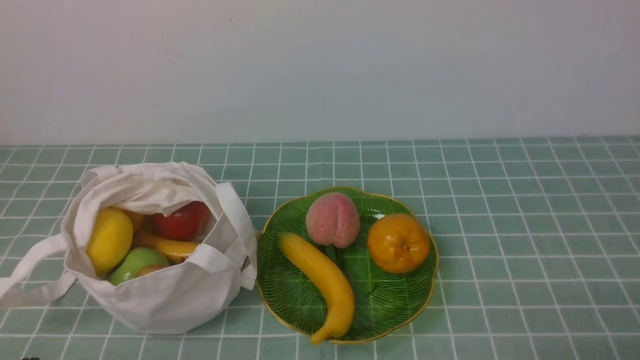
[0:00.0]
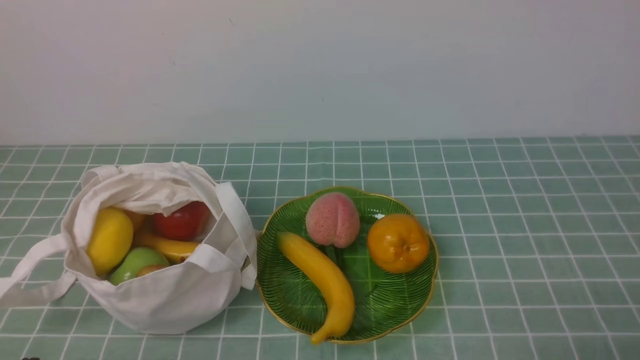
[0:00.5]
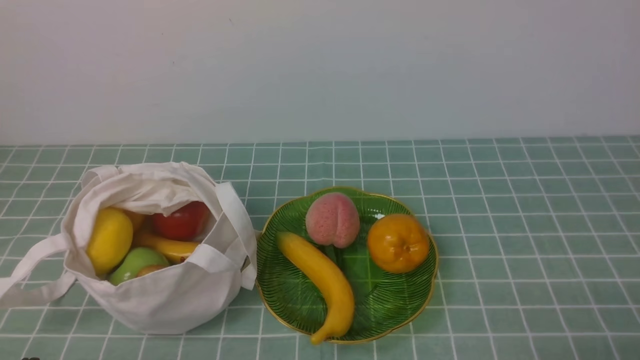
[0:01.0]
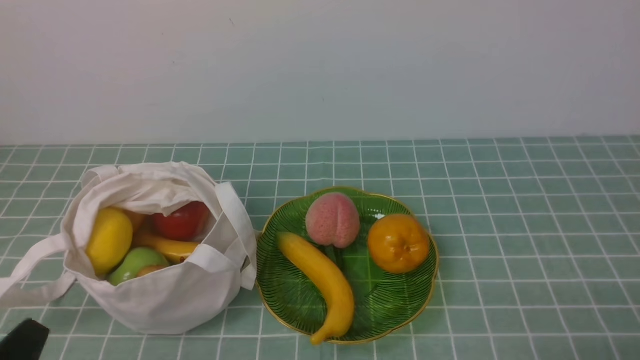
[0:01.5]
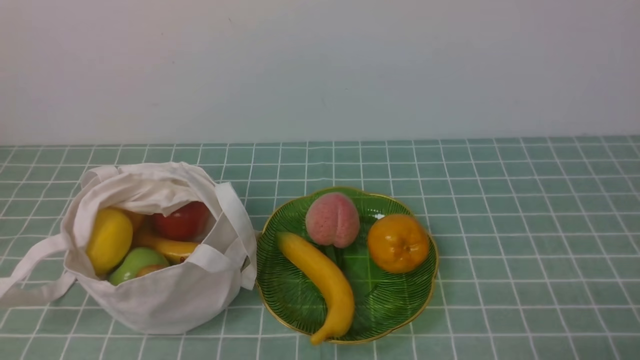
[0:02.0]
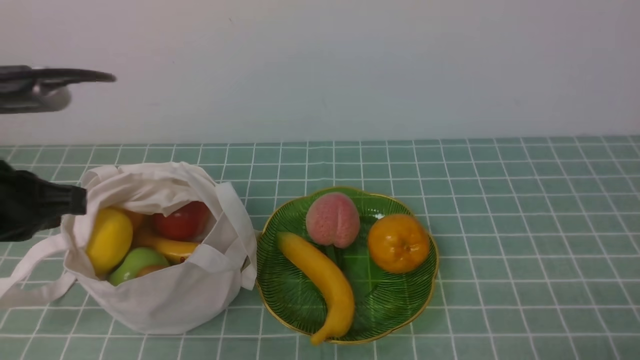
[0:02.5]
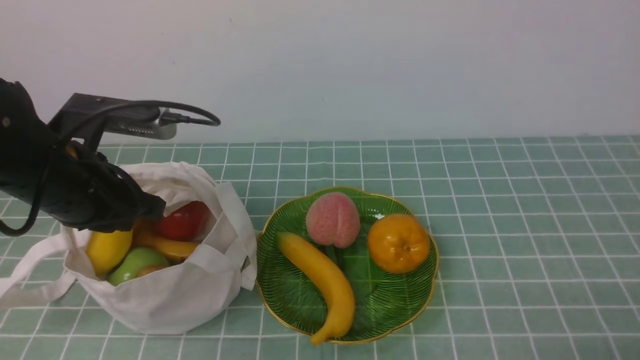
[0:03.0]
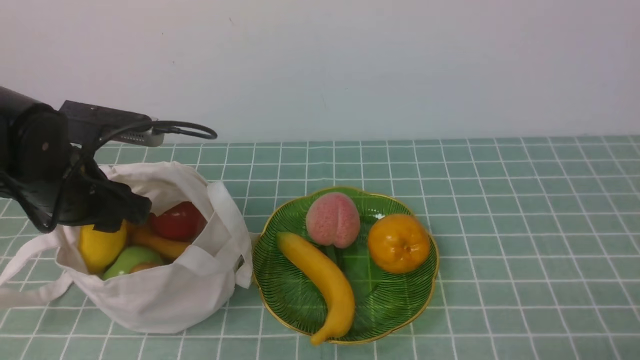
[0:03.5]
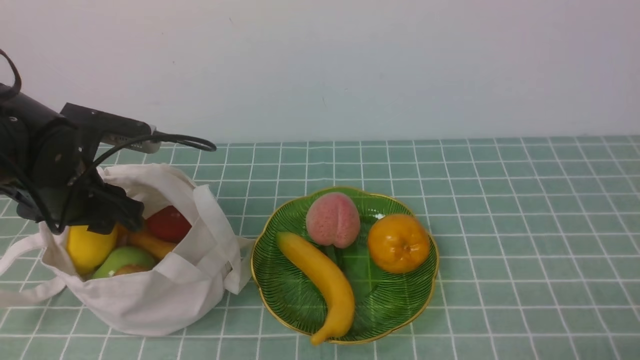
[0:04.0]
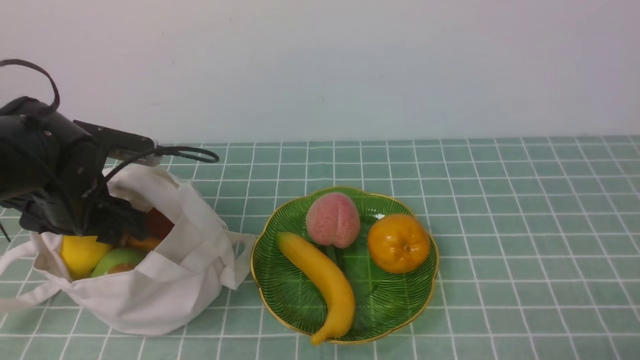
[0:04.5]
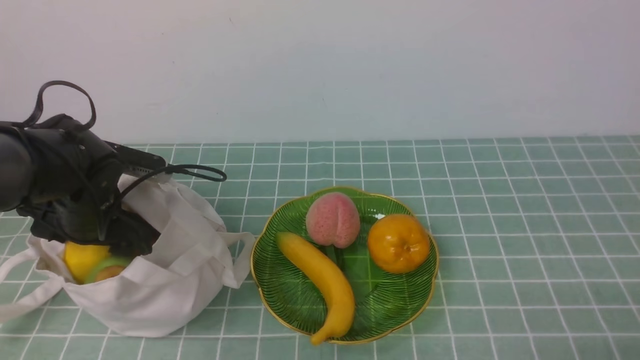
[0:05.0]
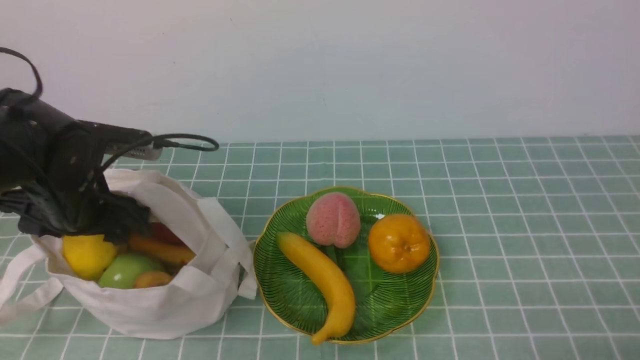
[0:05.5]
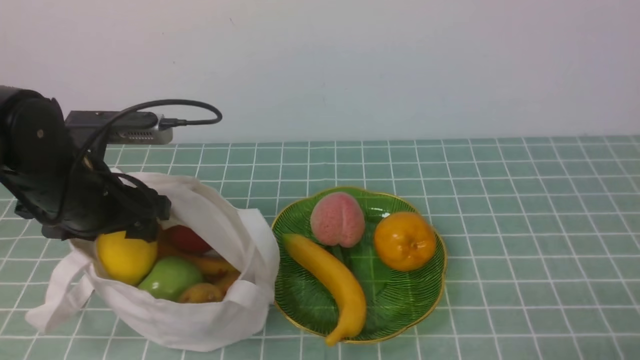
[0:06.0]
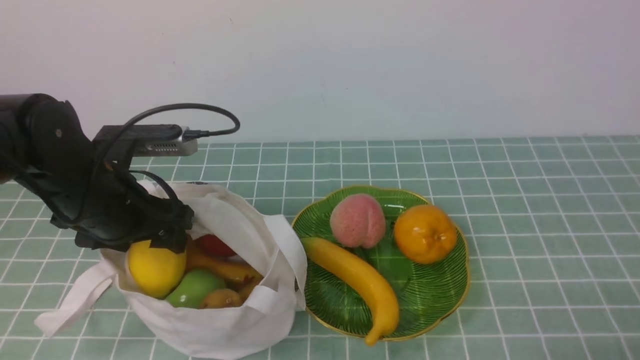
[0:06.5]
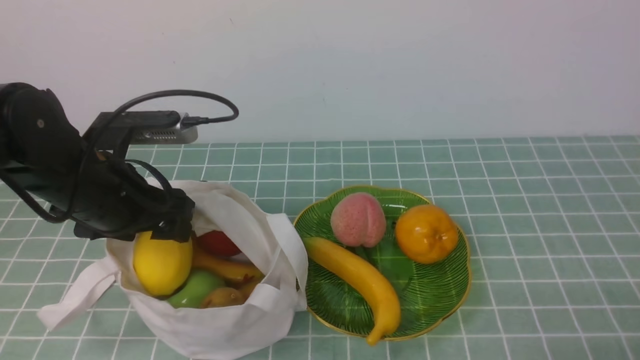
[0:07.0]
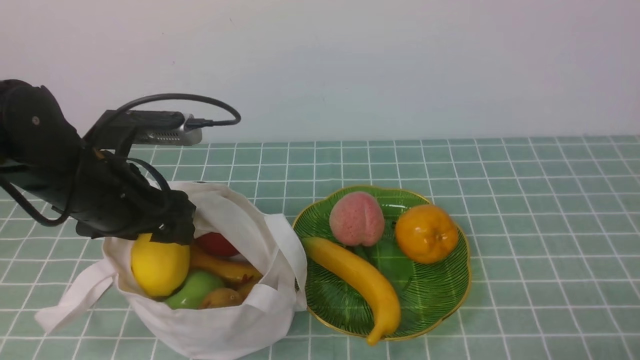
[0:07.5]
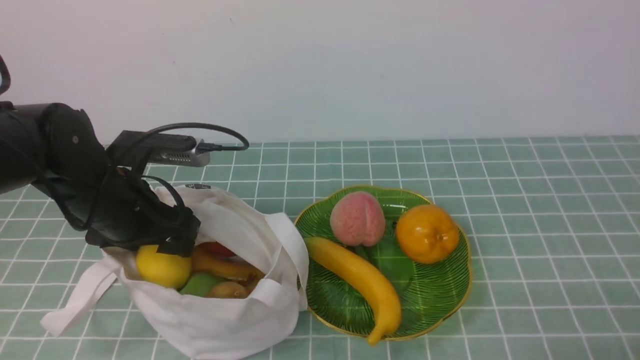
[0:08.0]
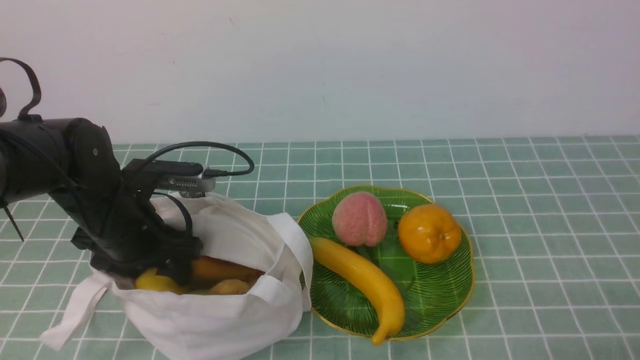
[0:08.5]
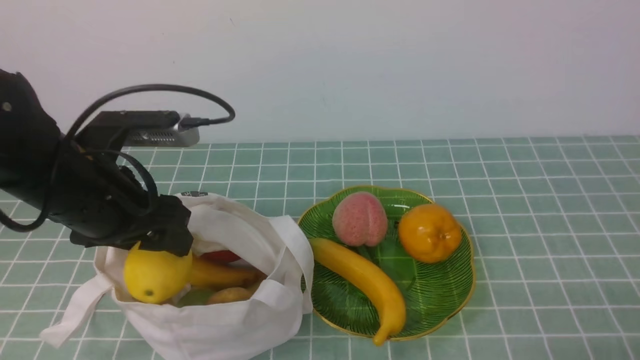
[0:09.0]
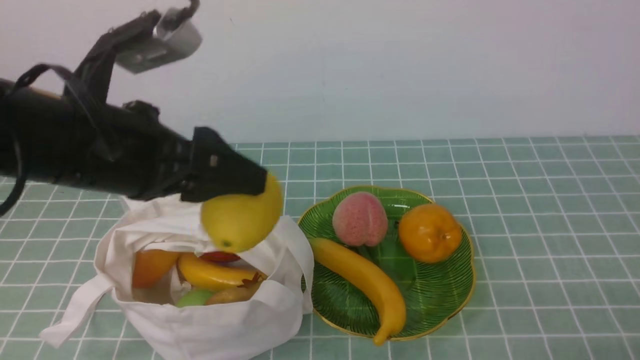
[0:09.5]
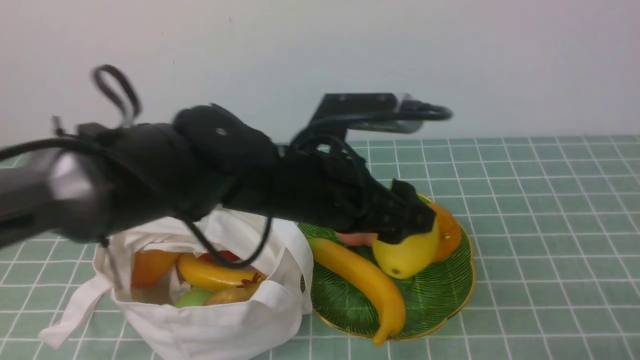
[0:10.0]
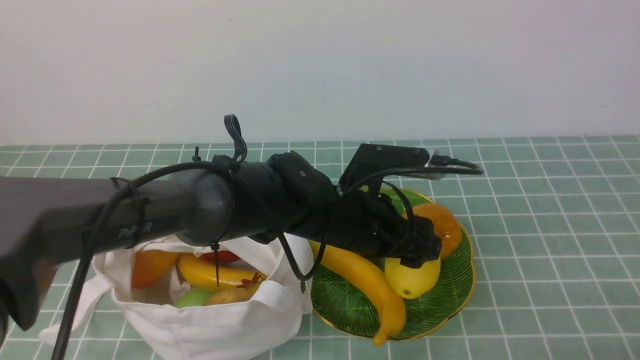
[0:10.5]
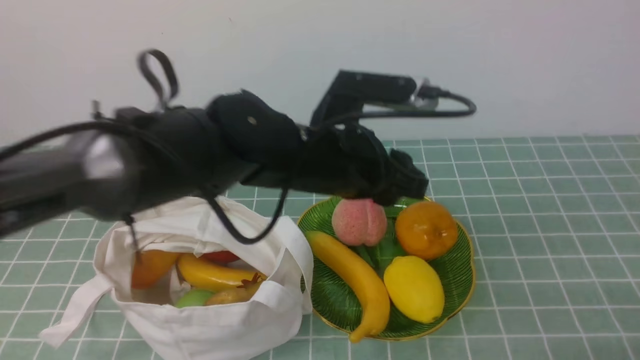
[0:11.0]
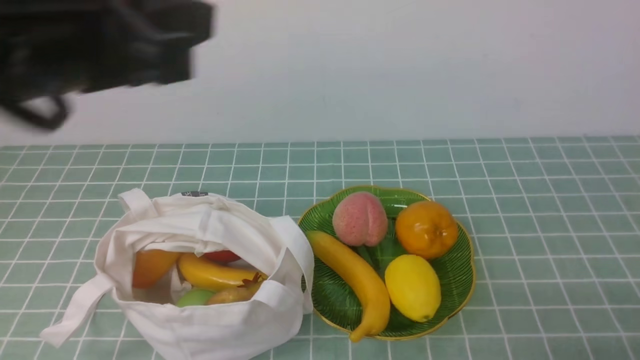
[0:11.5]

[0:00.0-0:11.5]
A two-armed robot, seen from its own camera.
Step, 0.0 to 8.5 s: use the left arm to grab a lemon from the bag.
Step, 9.0 to 10.5 s: use the left arm to put the lemon into the empty plate on the right.
2.0 to 4.0 s: The left gripper is displaced forward by roughly 25 cm, and opens up.
6.0 to 7.5 s: The grippers stay close to where they were, moving slightly.
7.5 to 9.5 s: The left gripper heads upward, covering some 10 cm.
9.5 to 11.5 s: The left gripper moves upward, some 10 cm, and closes.

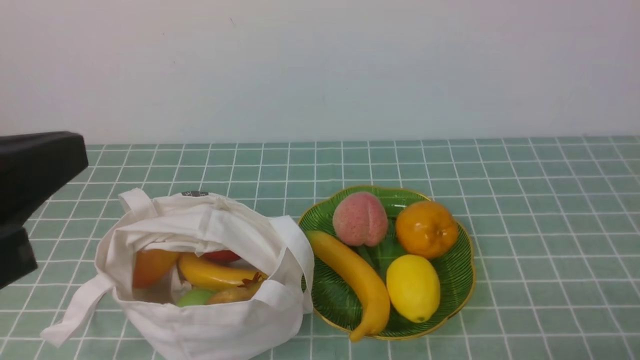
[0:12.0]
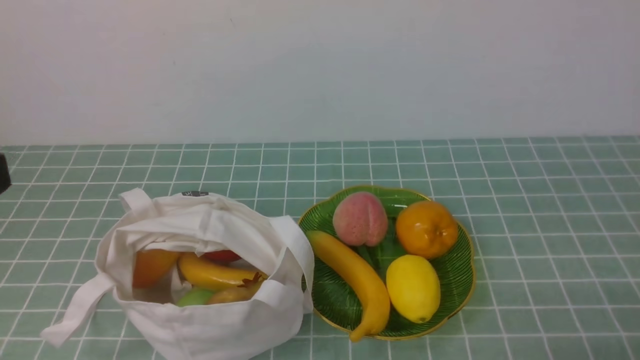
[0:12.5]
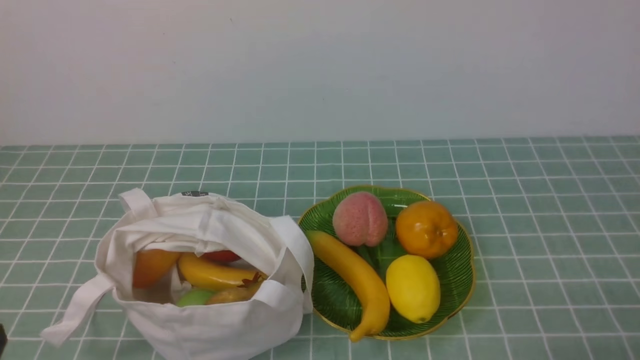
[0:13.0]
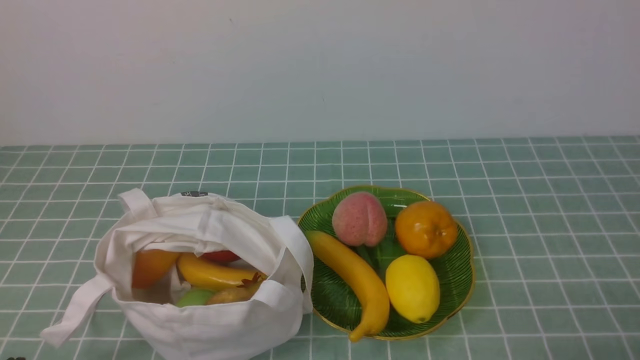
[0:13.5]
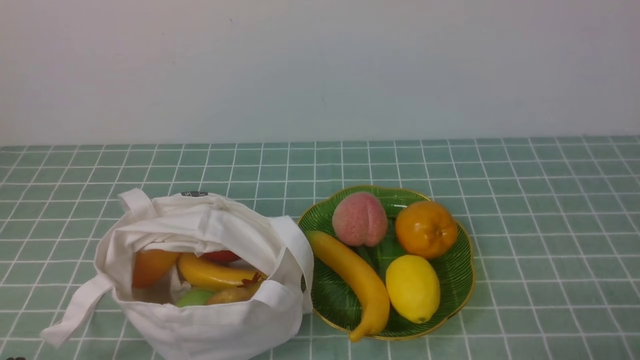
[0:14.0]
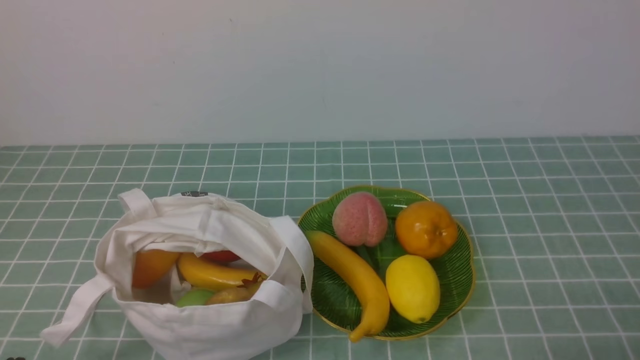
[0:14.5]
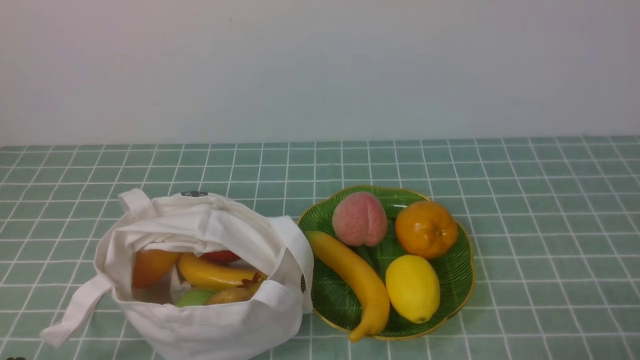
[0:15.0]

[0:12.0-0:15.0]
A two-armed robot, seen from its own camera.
12.0 to 13.5 s: The left gripper travels downward by about 25 cm.
13.5 to 15.0 s: Both grippers stay put.

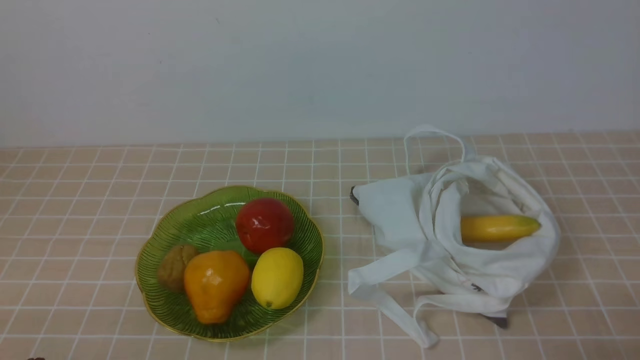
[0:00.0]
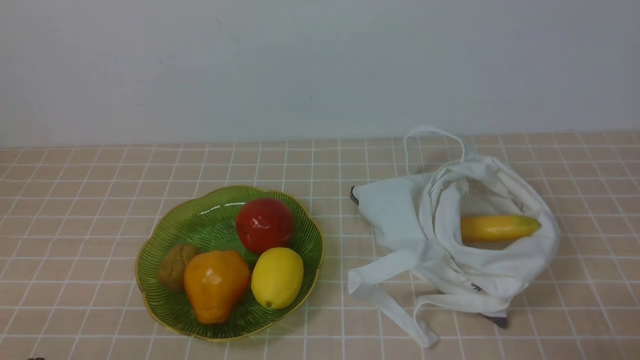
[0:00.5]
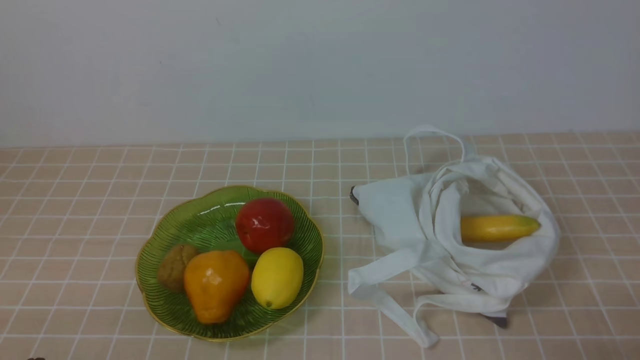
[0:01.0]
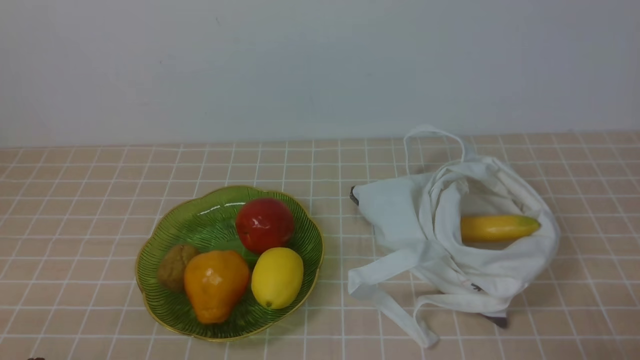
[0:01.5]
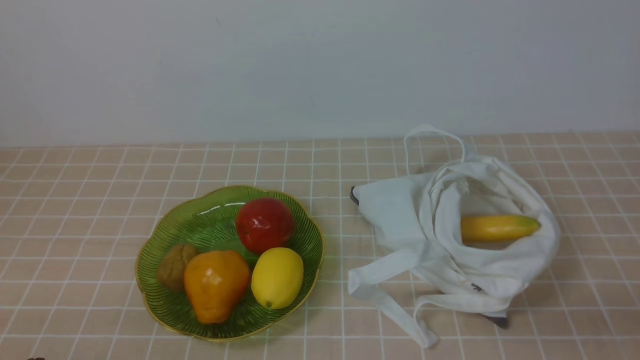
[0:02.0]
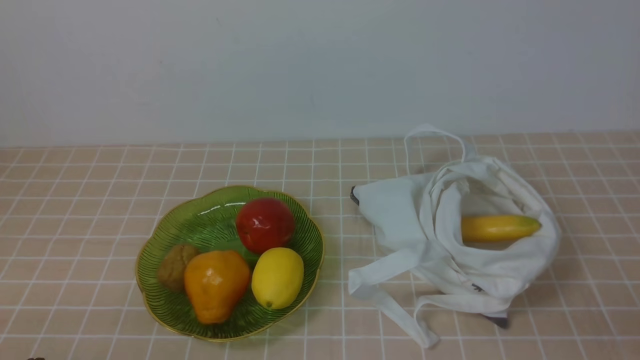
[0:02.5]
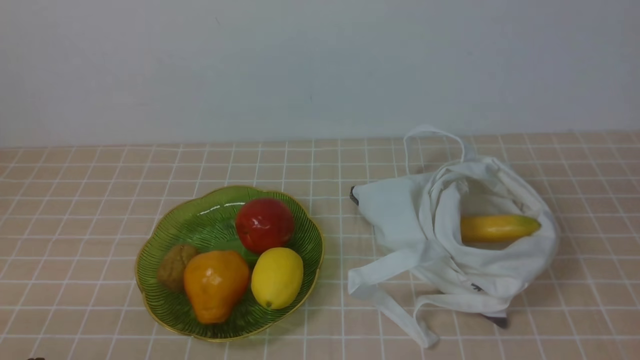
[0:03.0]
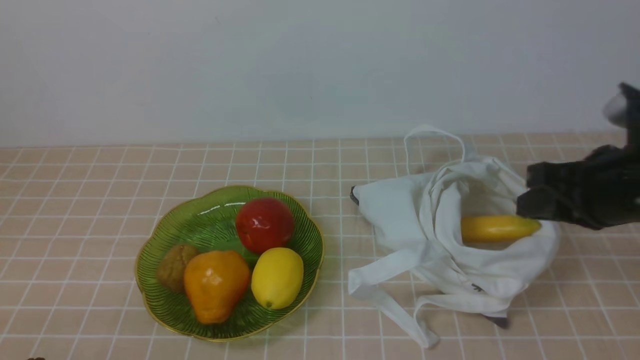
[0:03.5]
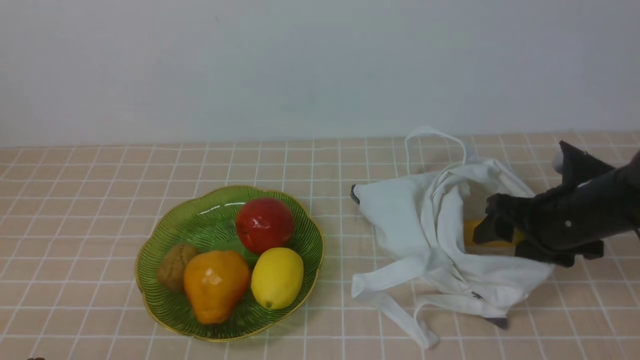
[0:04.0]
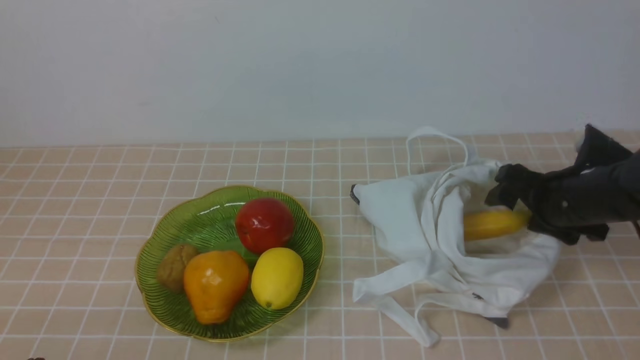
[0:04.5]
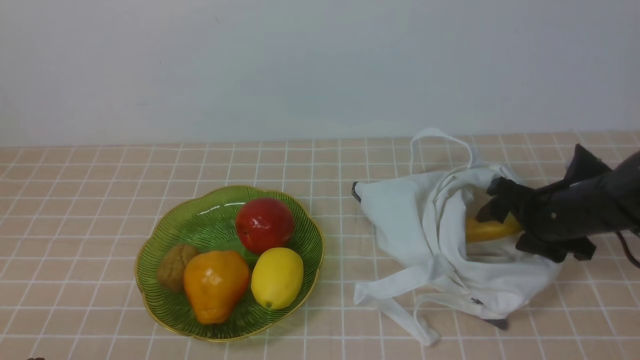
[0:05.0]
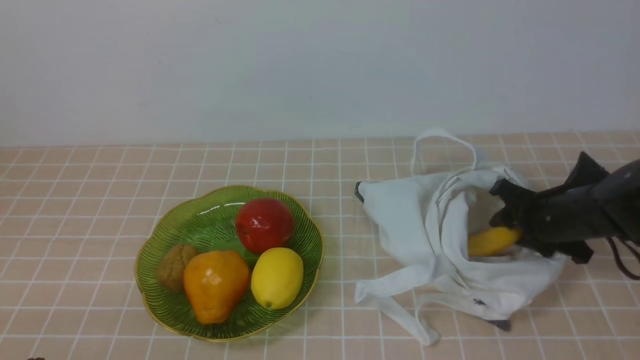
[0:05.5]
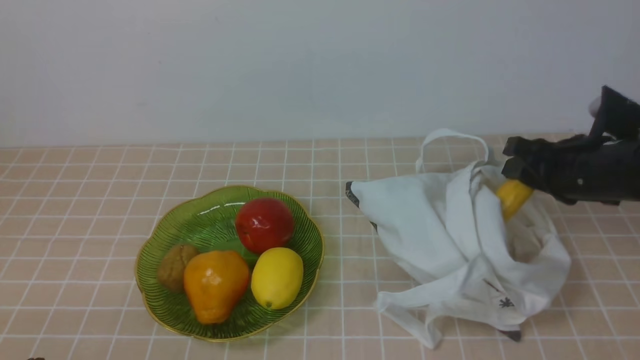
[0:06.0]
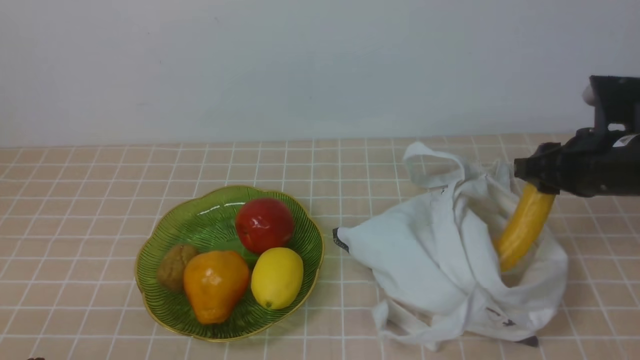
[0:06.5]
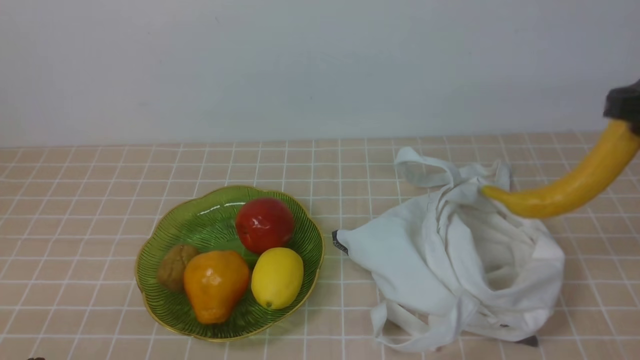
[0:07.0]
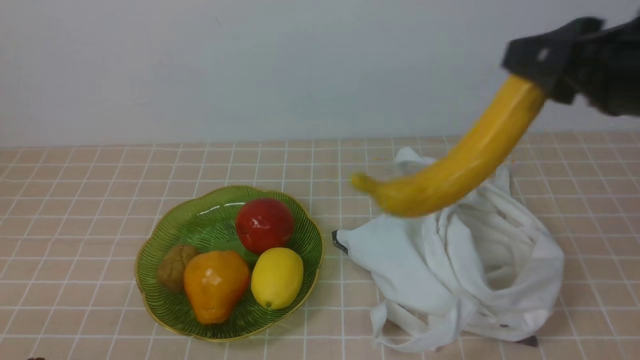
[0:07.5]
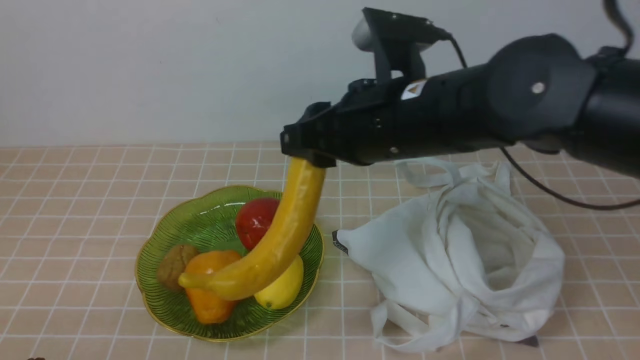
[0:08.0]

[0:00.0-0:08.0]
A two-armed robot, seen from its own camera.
Step, 0.0 to 5.5 s: use the right arm to grab a banana from the bag.
2.0 to 4.0 s: The right gripper travels forward by approximately 25 cm, and opens up.
6.0 to 8.0 s: The right gripper shifts roughly 20 cm to the left and upward.
